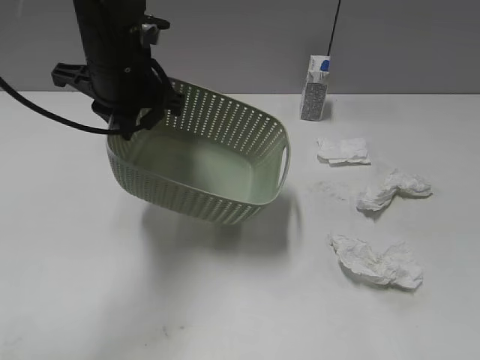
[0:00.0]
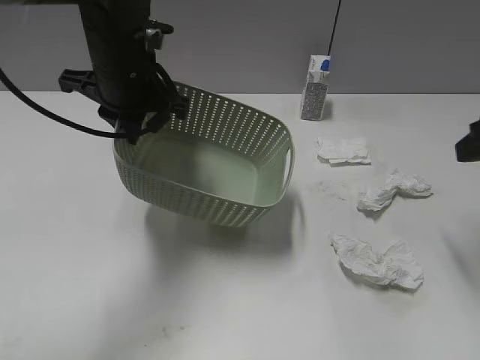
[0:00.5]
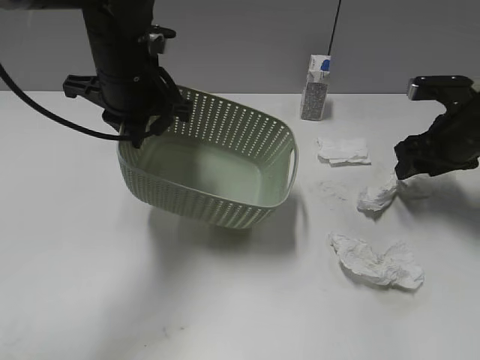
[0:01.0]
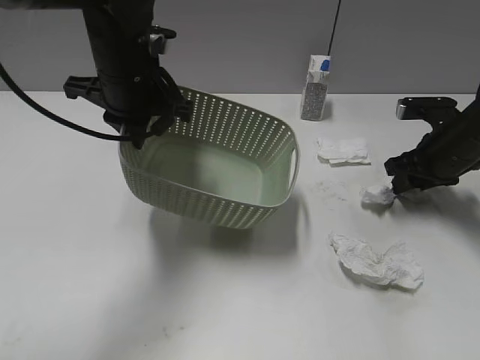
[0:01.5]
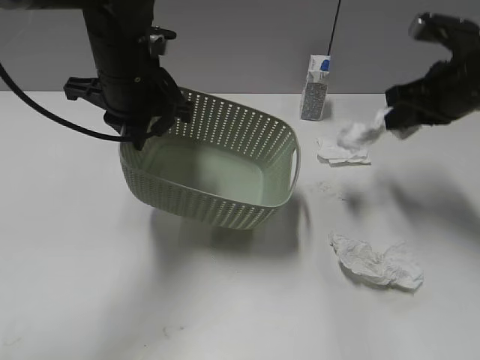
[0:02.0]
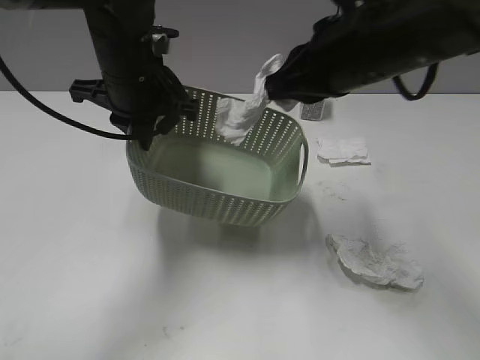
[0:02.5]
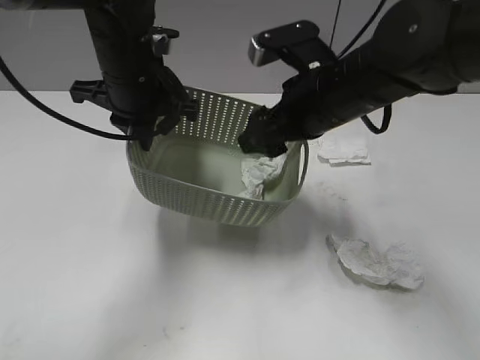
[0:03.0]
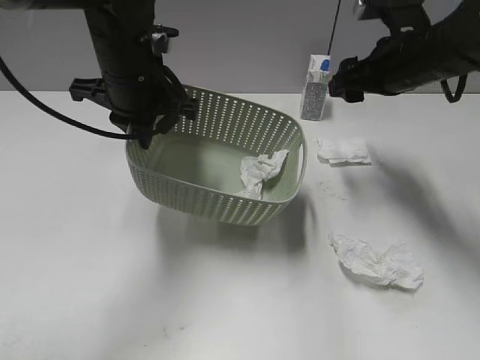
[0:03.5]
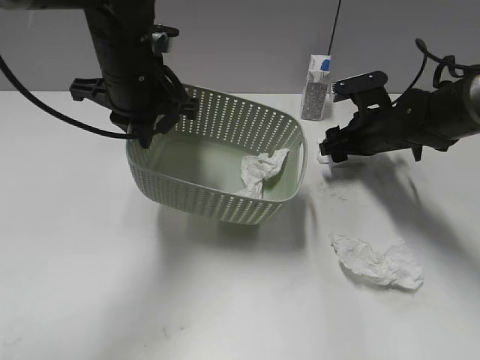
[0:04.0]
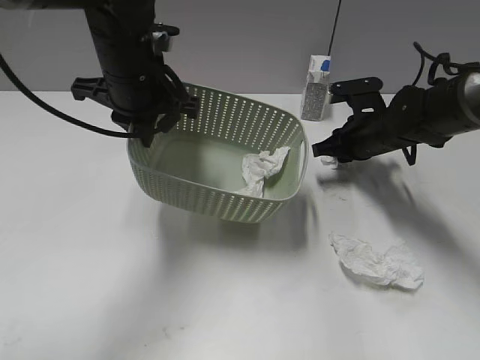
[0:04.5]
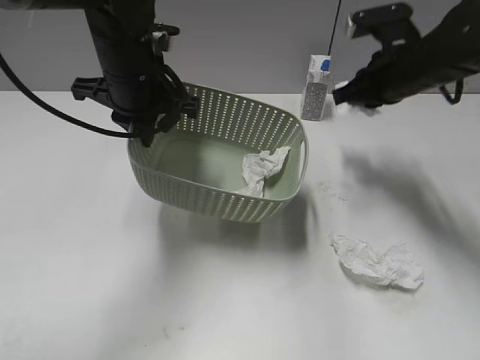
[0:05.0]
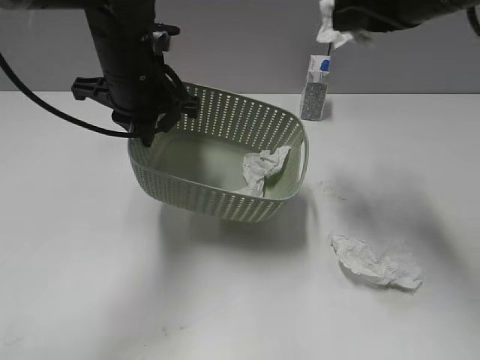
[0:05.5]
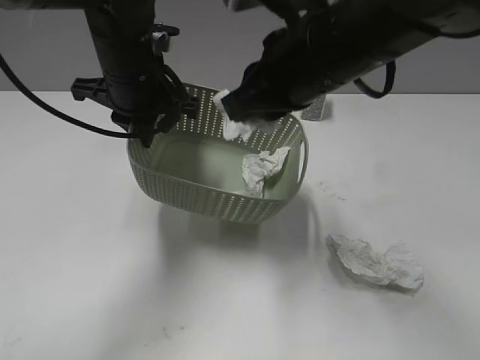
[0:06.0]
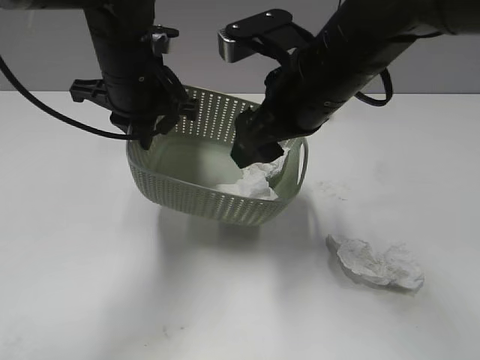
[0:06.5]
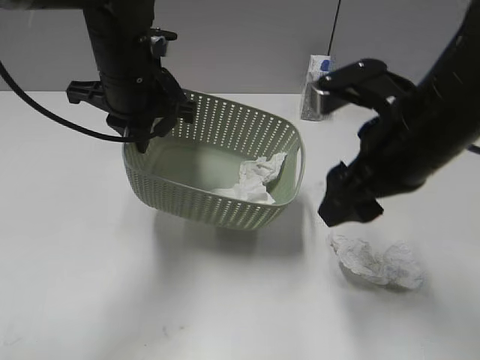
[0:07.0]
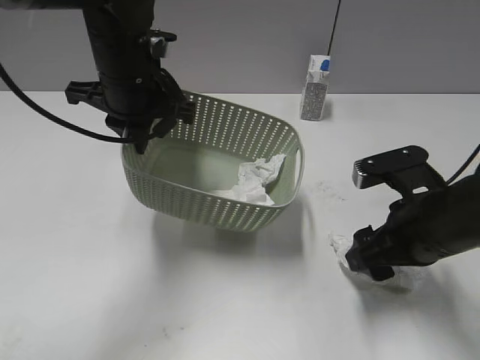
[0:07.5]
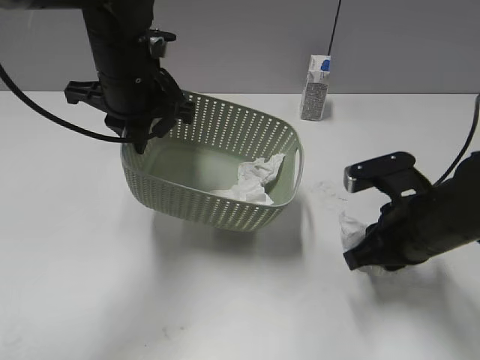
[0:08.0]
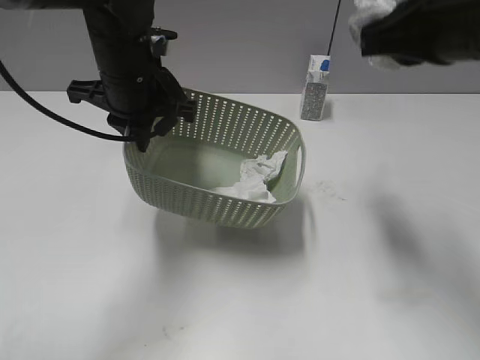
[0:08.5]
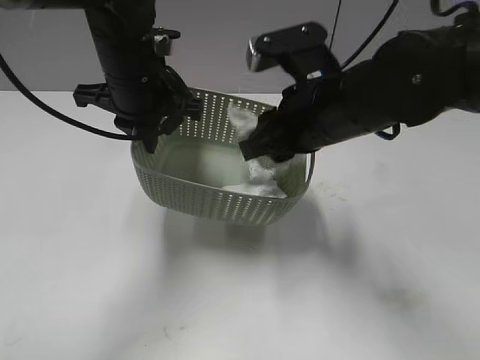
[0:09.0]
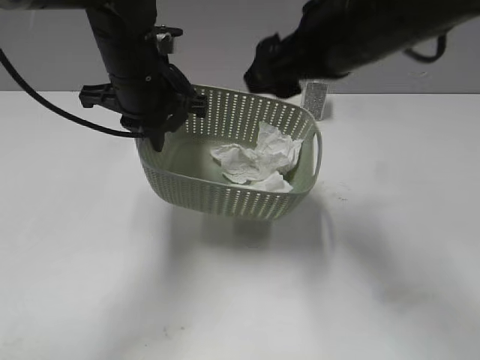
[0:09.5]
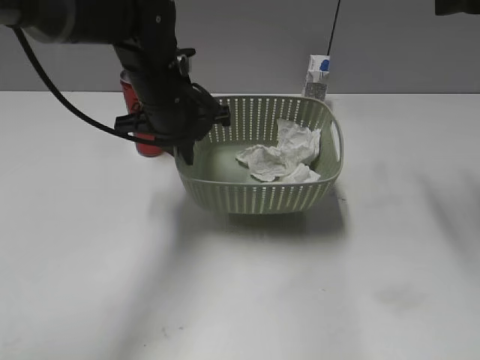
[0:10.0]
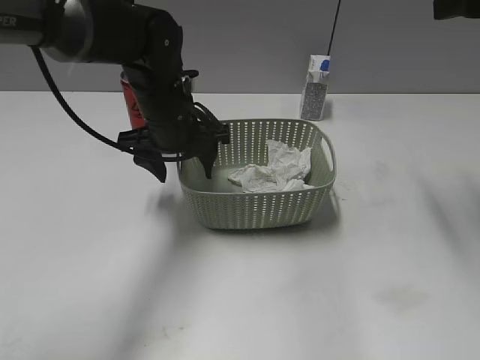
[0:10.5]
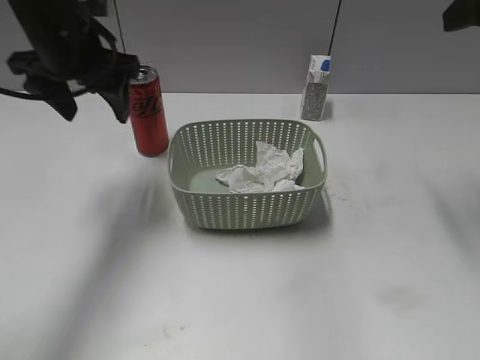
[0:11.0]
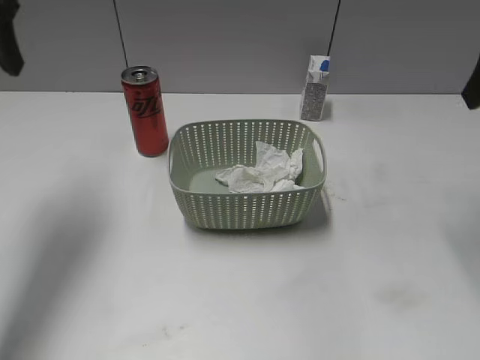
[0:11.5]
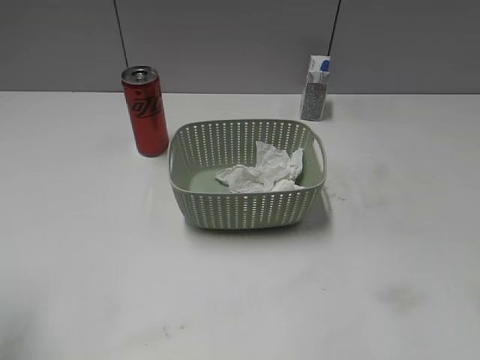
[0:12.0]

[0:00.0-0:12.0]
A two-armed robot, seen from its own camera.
Step, 0:00.5 to 0:01.5: Grasp the waste paper with right gripper.
Step, 0:02.0 to 0:03.0: Place the waste paper in the basket with right gripper.
Step, 0:03.5 to 0:04.5: Grasp the waste paper with right gripper.
Step, 0:05.0 to 0:06.5: Place the waste paper in the basket with right gripper.
Step, 0:07.0 to 0:08.0: Grasp the waste paper with right gripper.
Step, 0:08.5 to 0:09.5: Place the waste paper in the basket with right gripper.
Step, 0:10.0 to 0:10.5: Place the basket on the table with left gripper.
0:00.0 to 0:02.0: The right gripper shifts some 30 cm forward, and closes.
0:02.0 to 0:04.0: The right gripper is displaced downward and forward by some 15 cm, and opens up.
0:04.0 to 0:06.0: The right gripper shifts about 25 cm upward, to the left and backward, and closes up.
0:06.0 to 0:08.0: The right gripper heads downward and to the right, covering approximately 20 cm, and opens and closes again.
0:08.0 to 0:10.0: The right gripper swings up and down, about 25 cm each way, with 2 reversals, and opens. The left gripper shifts by some 5 cm.
0:10.0 to 0:12.0: The left gripper goes about 35 cm backward, to the left and upward, and opens. Meanwhile the right gripper travels backward by some 15 cm.

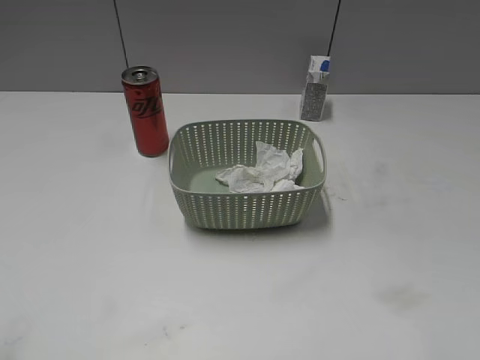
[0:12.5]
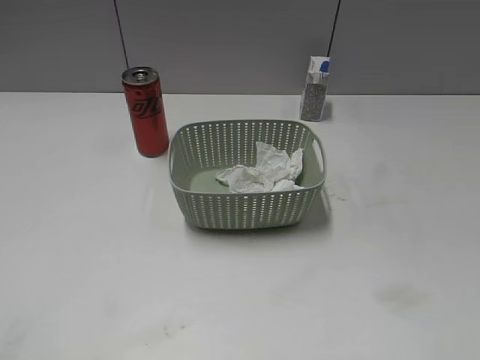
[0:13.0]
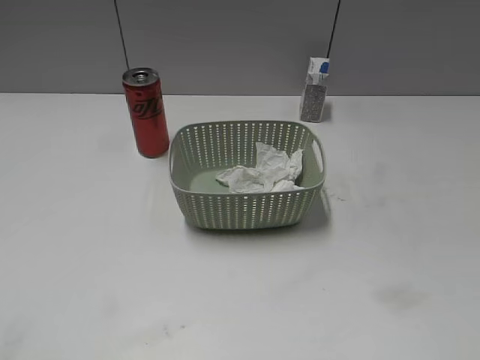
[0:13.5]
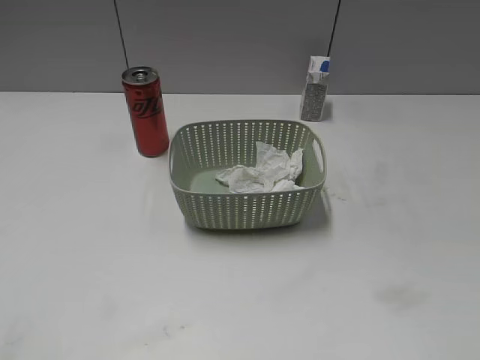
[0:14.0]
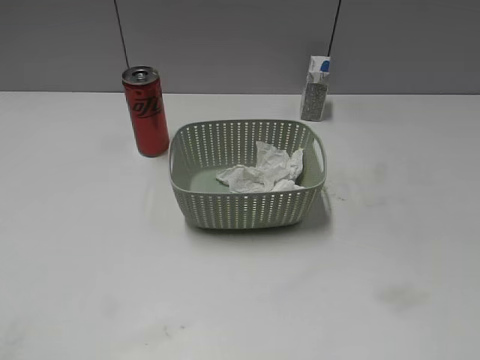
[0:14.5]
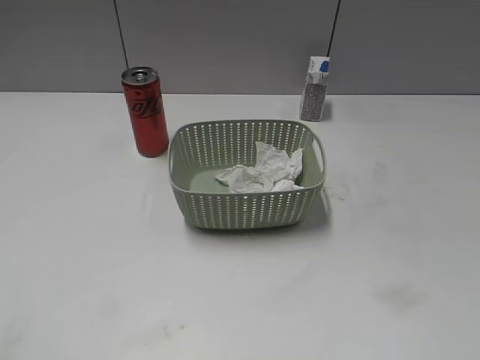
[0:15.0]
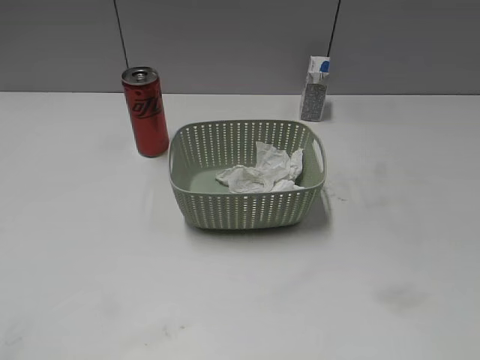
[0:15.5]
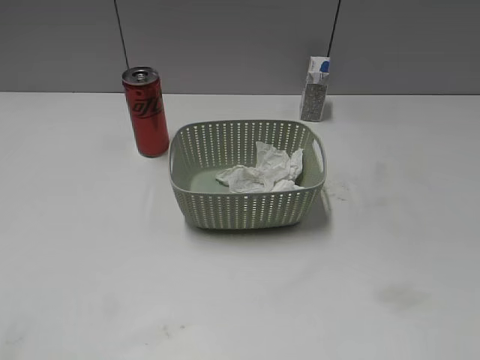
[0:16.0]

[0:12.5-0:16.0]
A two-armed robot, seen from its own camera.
0:14.5 to 0:16.0: Both grippers stay put.

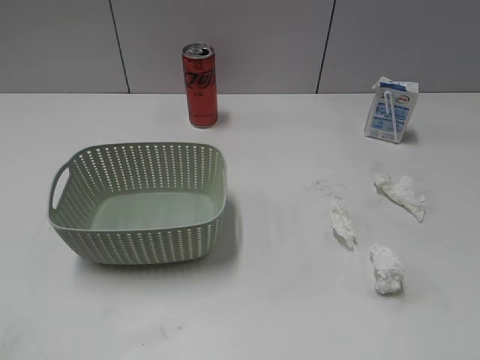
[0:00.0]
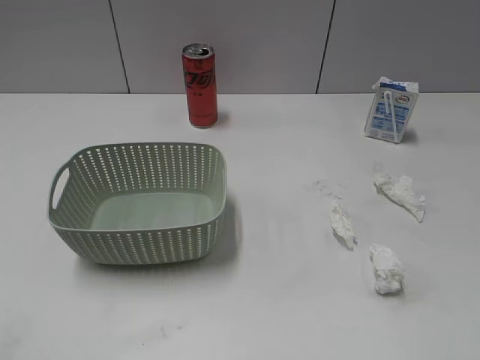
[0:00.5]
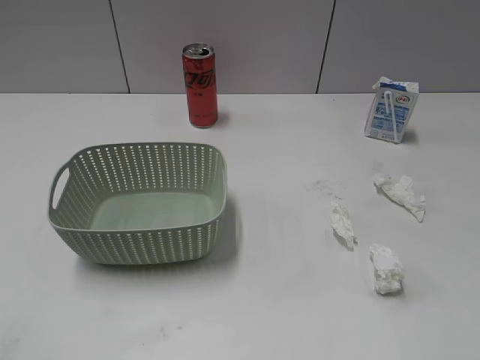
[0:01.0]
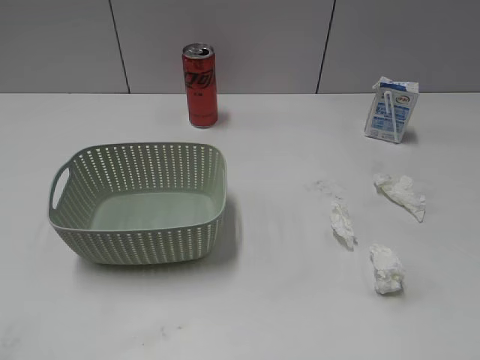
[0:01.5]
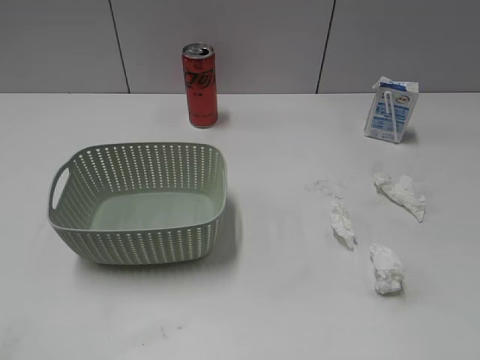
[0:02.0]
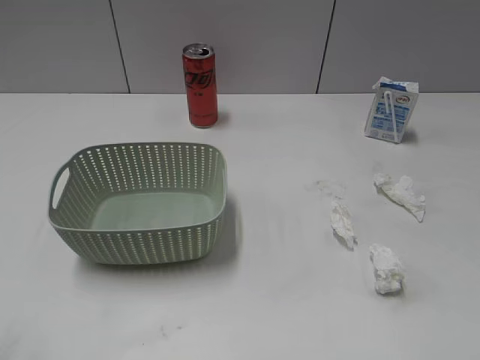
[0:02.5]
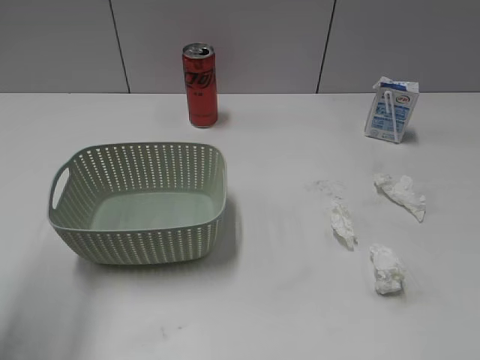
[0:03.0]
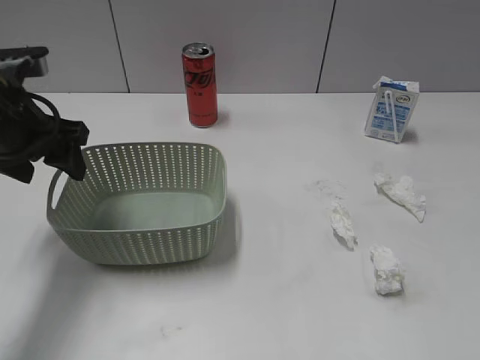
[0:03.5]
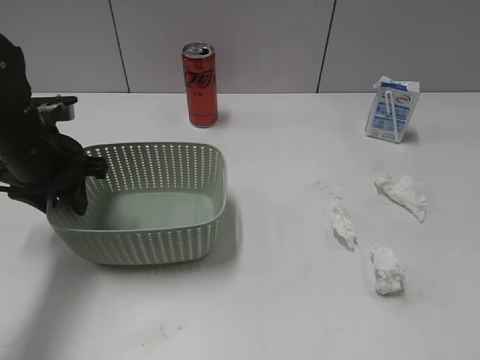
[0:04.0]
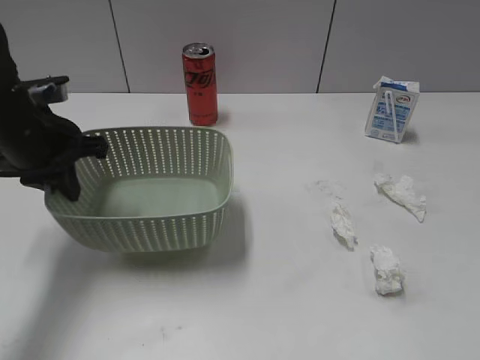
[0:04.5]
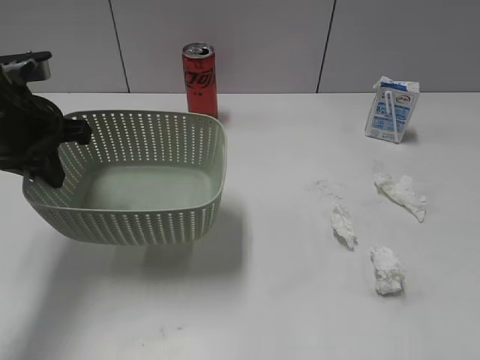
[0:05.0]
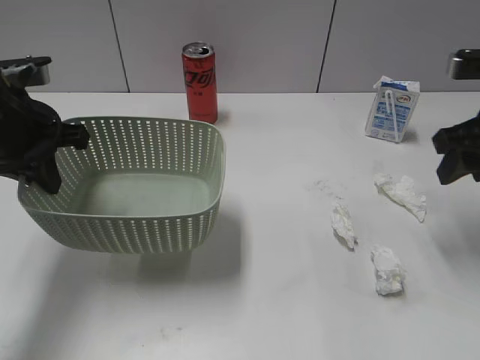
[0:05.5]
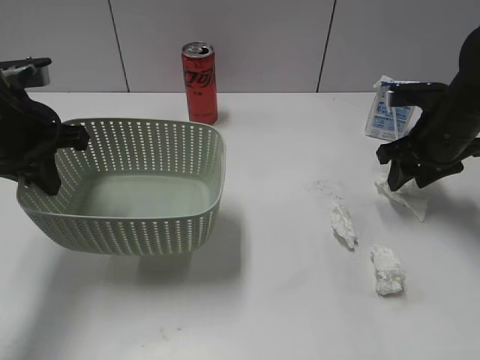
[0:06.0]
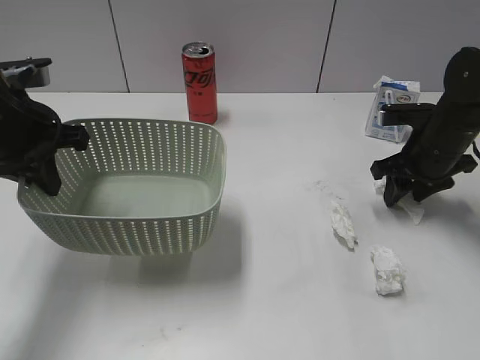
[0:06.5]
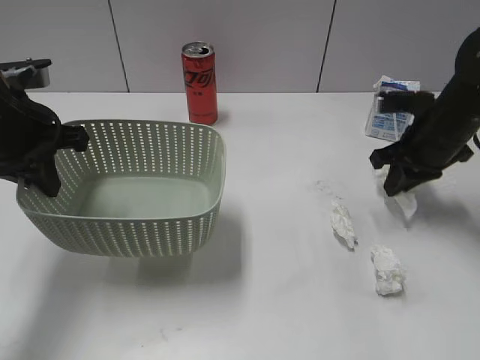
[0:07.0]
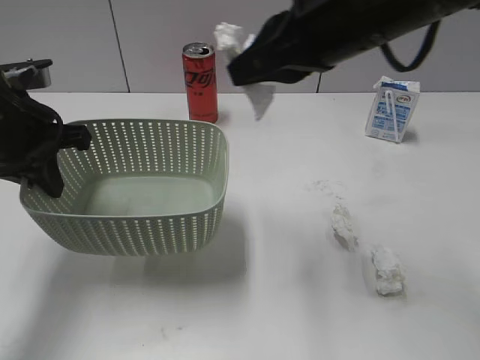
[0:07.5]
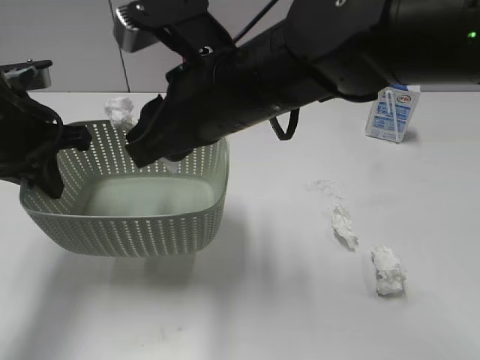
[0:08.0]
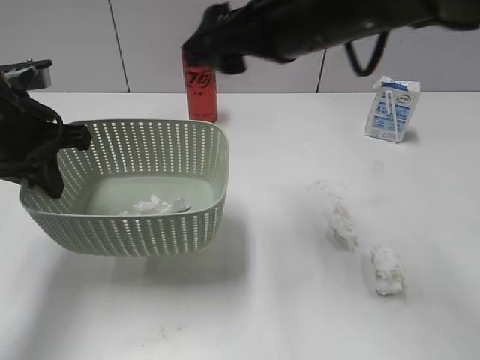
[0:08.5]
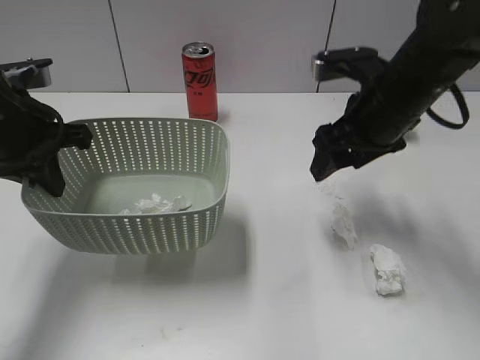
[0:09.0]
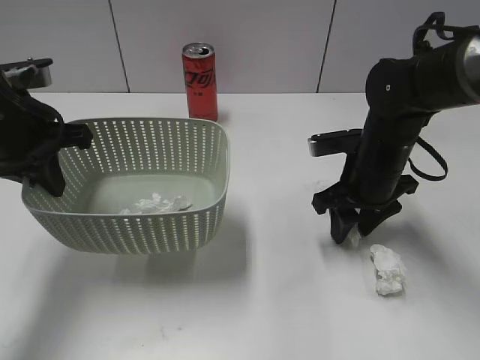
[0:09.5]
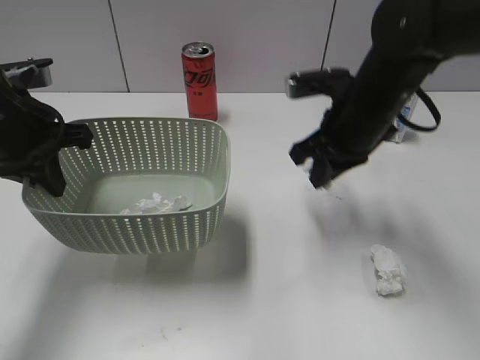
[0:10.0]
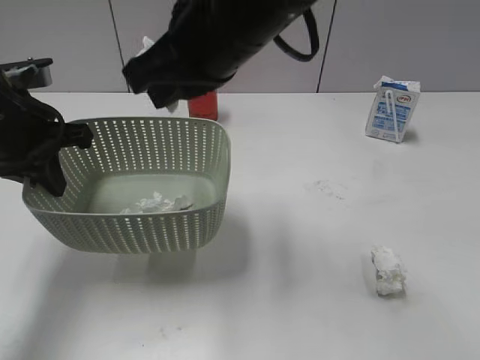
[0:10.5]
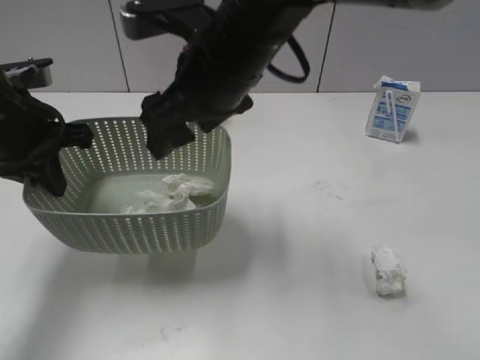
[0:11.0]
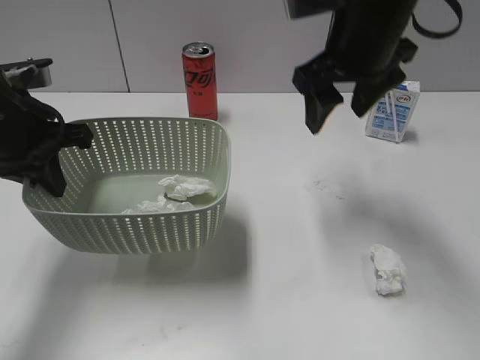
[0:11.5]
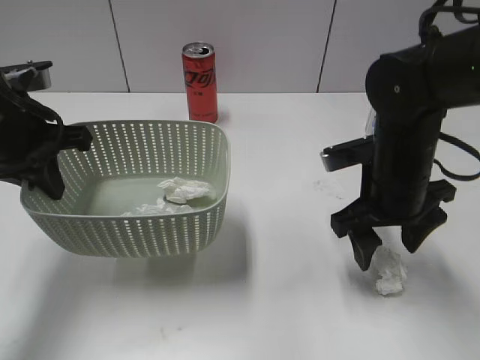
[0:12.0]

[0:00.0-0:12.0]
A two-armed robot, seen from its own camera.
Step, 0:03.0 to 0:04.5: Grasp the basket with left gripper.
Step, 0:05.5 to 0:07.0: Grasp the waste paper with right gripper.
Step, 0:07.5 to 0:08.0: Place the waste paper in the basket with right gripper.
Step, 0:08.5 to 0:09.5: Grasp the waste paper with right gripper.
Step, 0:10.0 to 0:11.0: Place the waste paper in the basket with right gripper.
0:02.0 to 0:04.0: The left gripper shifts some 35 cm forward, and closes.
0:04.0 to 0:06.0: The right gripper heads forward, covering some 40 cm, while the left gripper heads upward, covering roughly 5 cm, and closes up.
0:06.0 to 0:08.0: The right gripper travels to the left, backward and upward by approximately 30 cm, and closes, then reopens.
0:08.0 to 0:10.0: The right gripper swings up and down, about 20 cm each way, with 2 reversals, and closes.
0:10.0 to 0:12.0: The right gripper travels downward by approximately 5 cm, travels to the left and back again, roughly 15 cm each way, and opens up.
